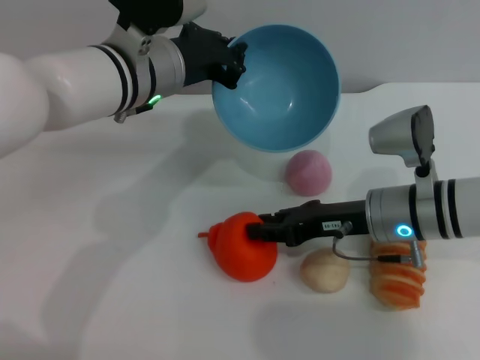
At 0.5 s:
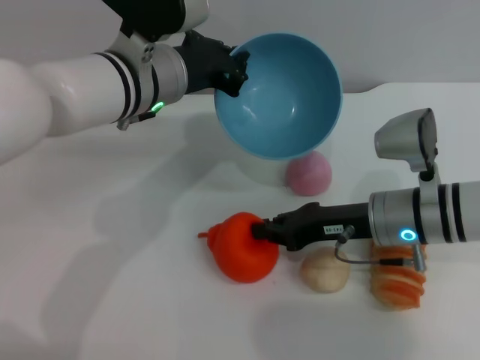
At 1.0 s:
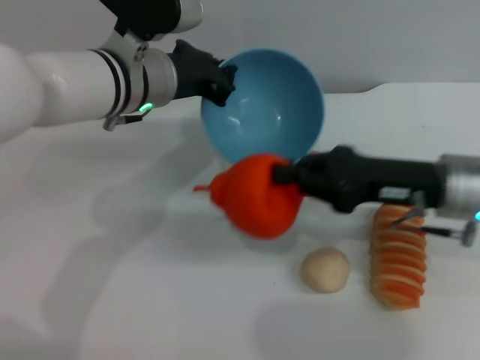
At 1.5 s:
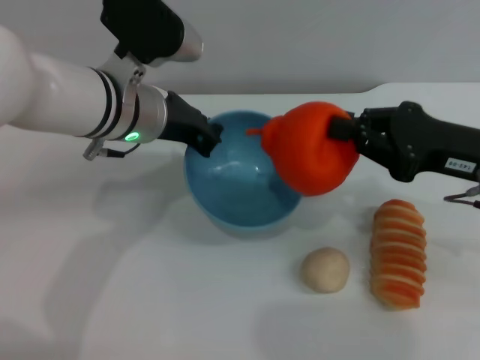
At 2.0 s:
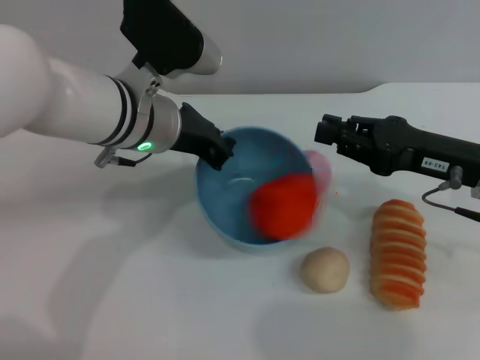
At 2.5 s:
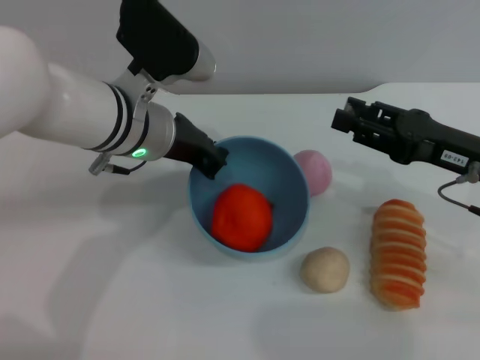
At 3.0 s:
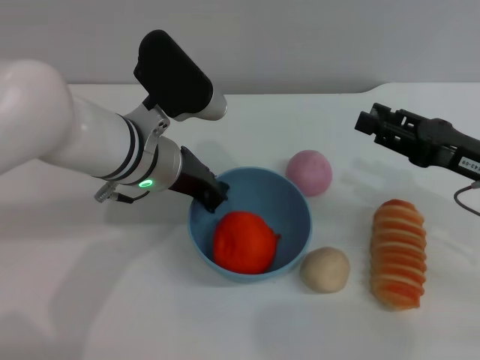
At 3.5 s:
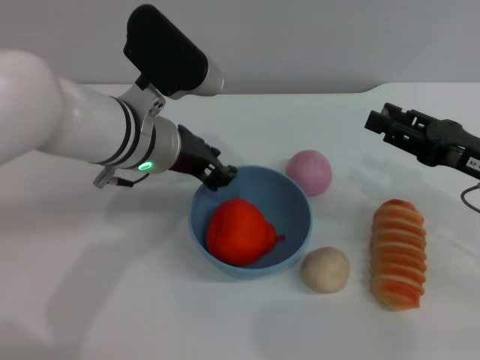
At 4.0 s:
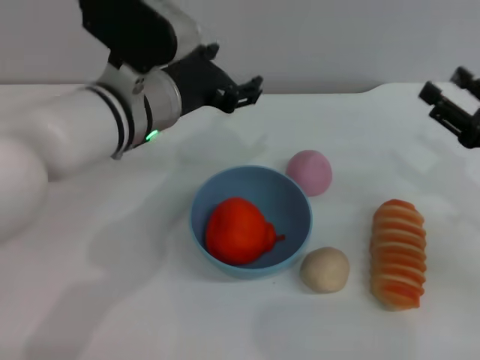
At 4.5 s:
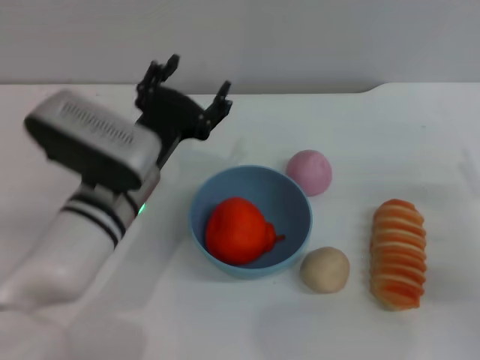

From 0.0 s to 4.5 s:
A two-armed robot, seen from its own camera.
Task of the whole recording: put the orange into the blue bowl and pour it out repeatedly.
Step, from 1.5 s to 2.0 s: Place the orange into the bowl.
Step, from 2.5 s to 3.5 s: Place the bowl on the table.
From 0.0 s to 2.0 s: The right gripper moves to the right and upward, about 10 cm, and closes.
From 2.0 s to 4.5 s: The right gripper travels to the right, downward and backward by about 10 cm, and opens up; the left gripper is displaced downward and backward by about 10 cm, and opens up.
